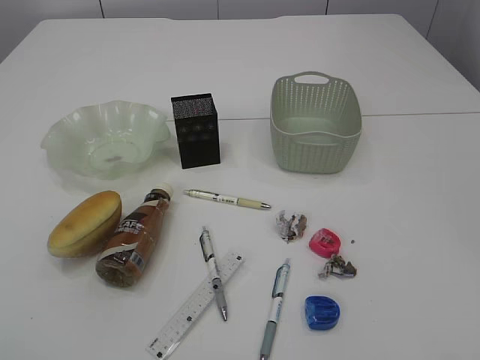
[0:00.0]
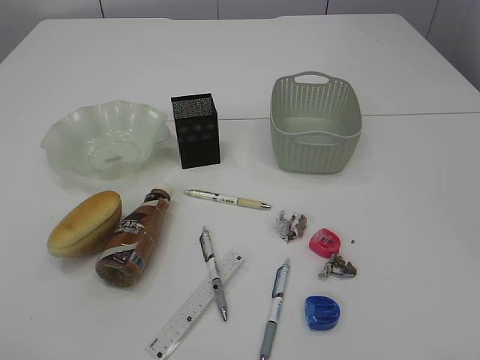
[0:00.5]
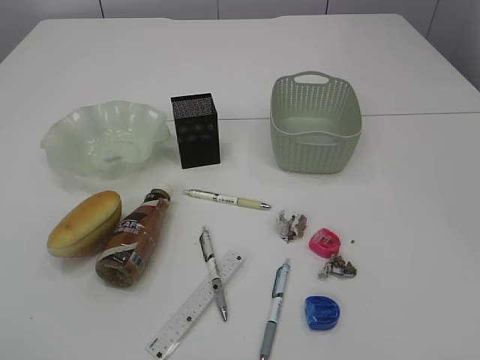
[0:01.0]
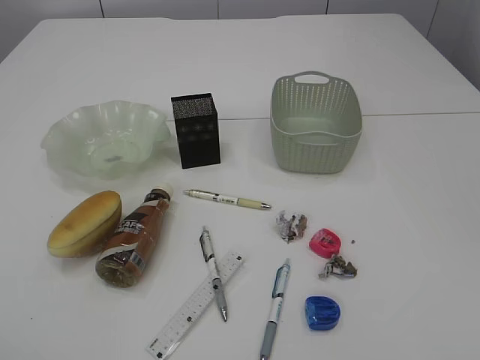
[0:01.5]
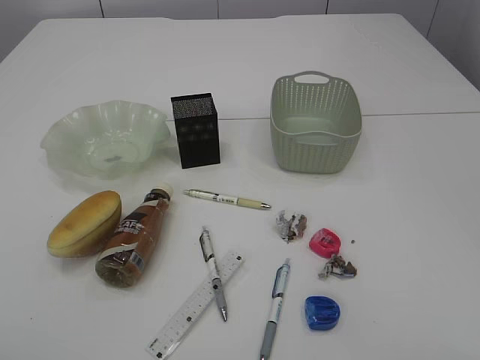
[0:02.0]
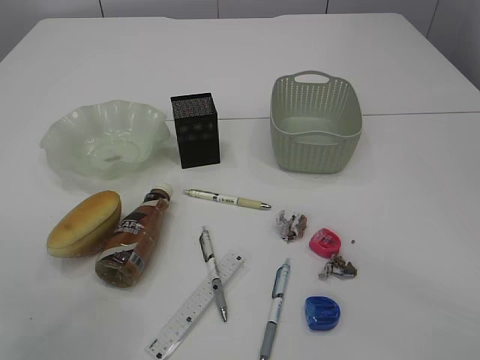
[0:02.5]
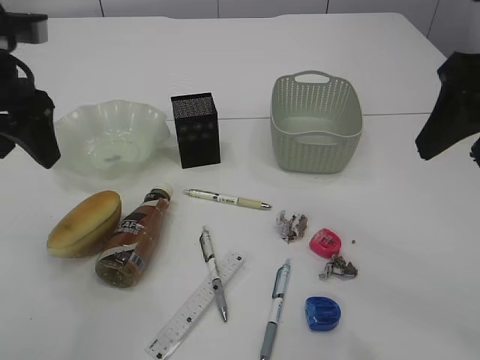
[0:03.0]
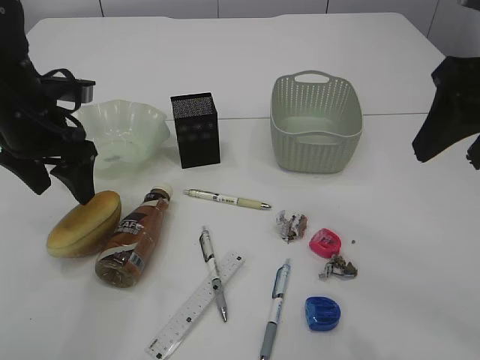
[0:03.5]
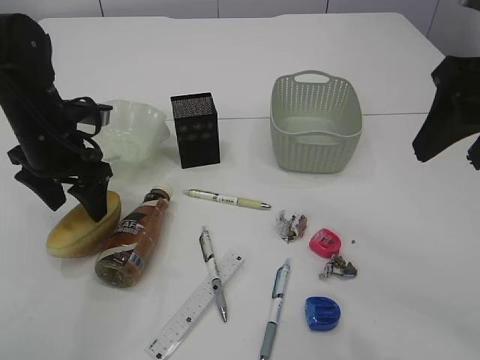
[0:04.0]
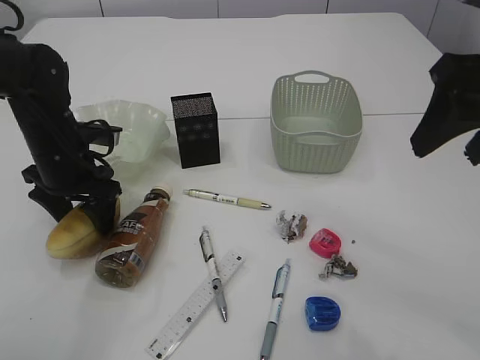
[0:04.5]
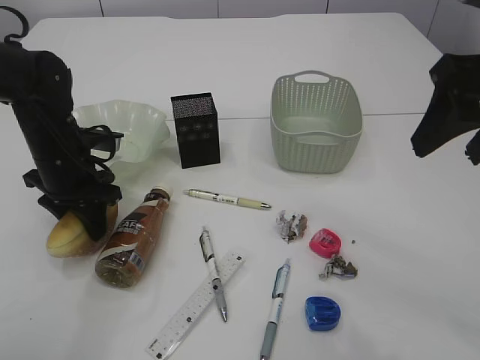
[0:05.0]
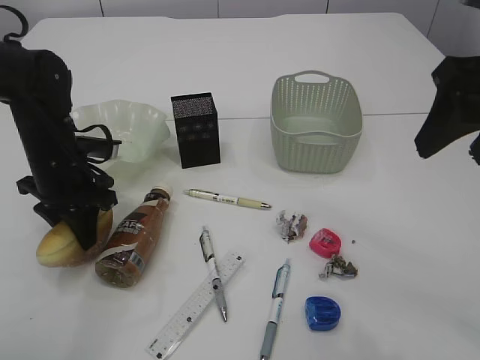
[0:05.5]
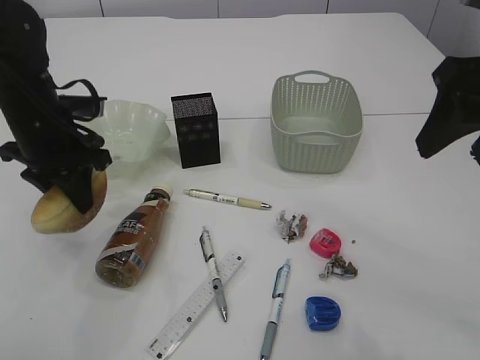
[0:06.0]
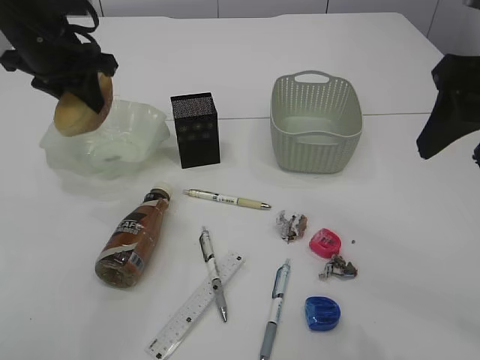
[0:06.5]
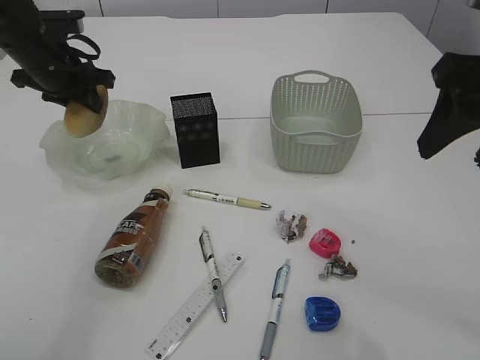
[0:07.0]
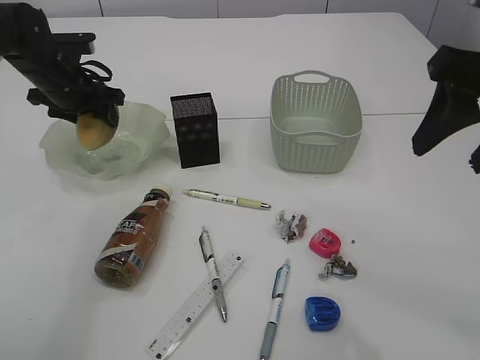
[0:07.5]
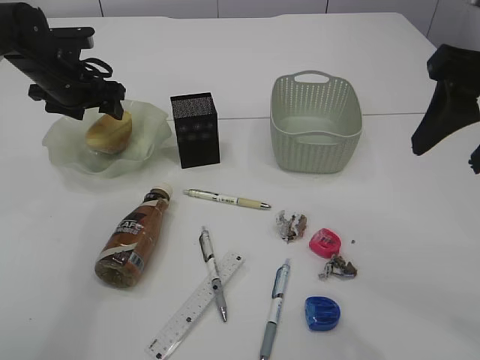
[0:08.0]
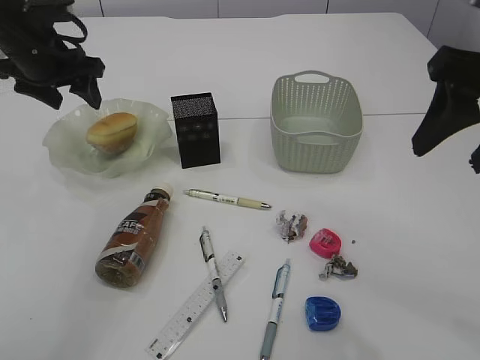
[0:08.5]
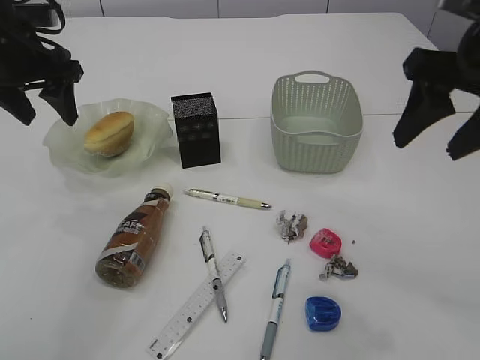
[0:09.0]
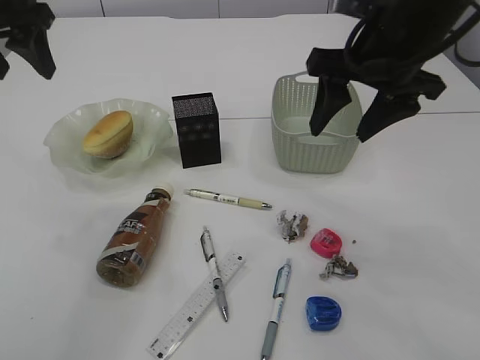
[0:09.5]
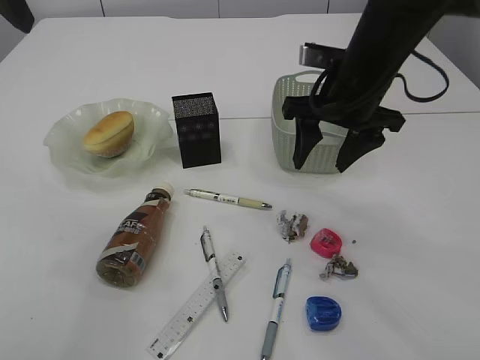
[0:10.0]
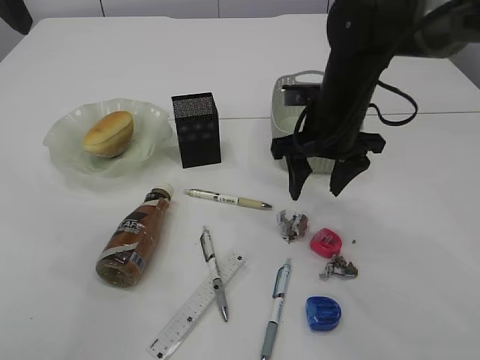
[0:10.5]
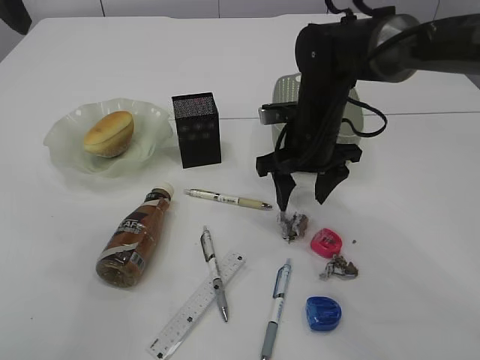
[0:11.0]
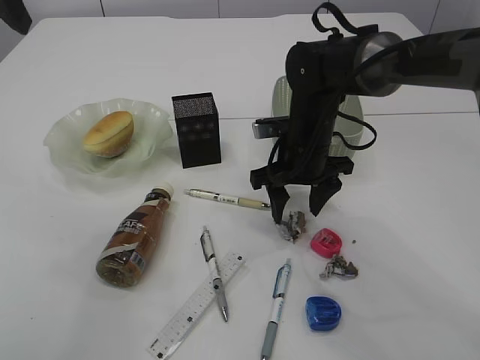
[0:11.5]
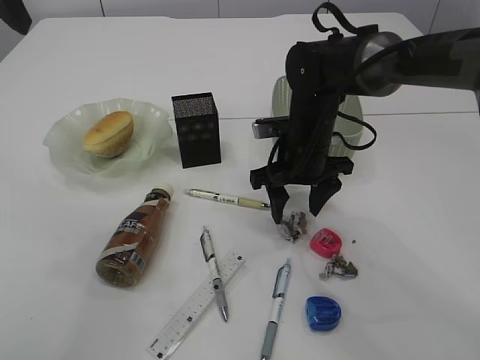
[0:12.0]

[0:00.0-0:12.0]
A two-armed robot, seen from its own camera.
Step, 0:06.0 to 0:08.0: place the bread in the plate.
0:02.0 to 0:04.0: The right gripper goes roughly 25 cm forward, while the left gripper heads forward and downward, covering approximately 35 cm.
0:04.0 to 0:06.0: The left gripper closes up.
0:06.0 to 0:08.0: The left gripper is displaced forward by roughly 10 cm, and opens up.
0:08.0 to 0:10.0: The right gripper goes about 20 cm forward, downward and to the left; the left gripper travels upward and backward by roughly 25 cm.
0:10.0 to 0:12.0: The right gripper moves downward, approximately 10 cm.

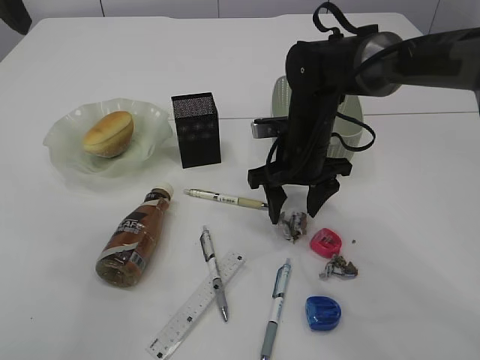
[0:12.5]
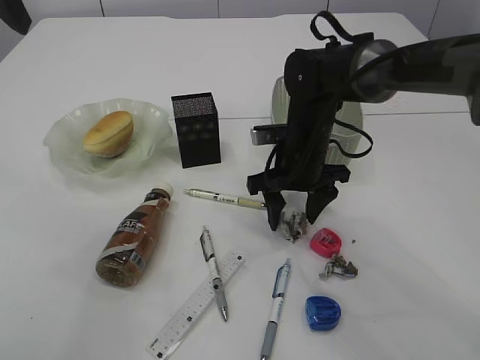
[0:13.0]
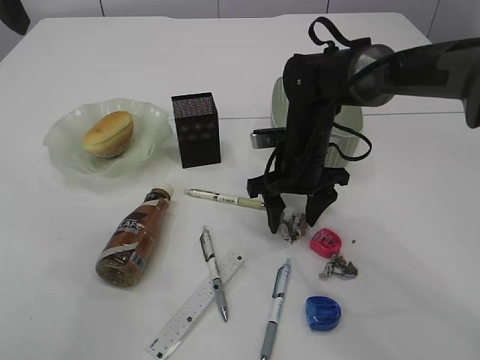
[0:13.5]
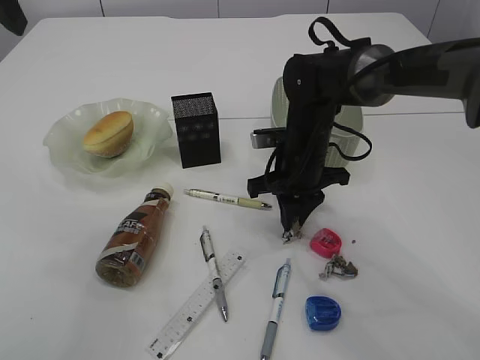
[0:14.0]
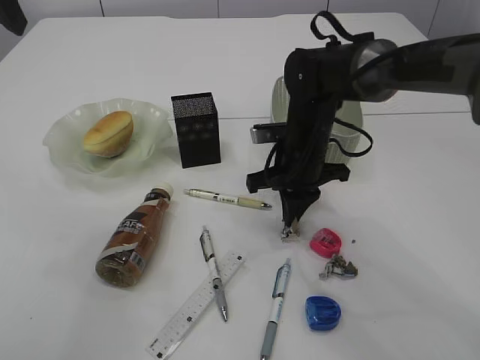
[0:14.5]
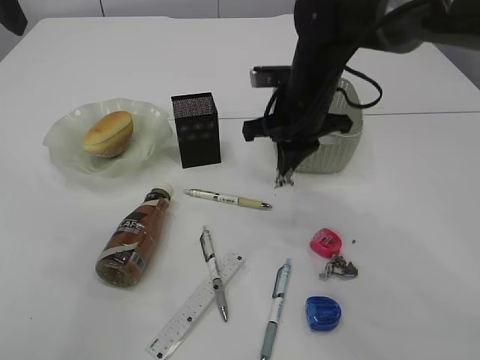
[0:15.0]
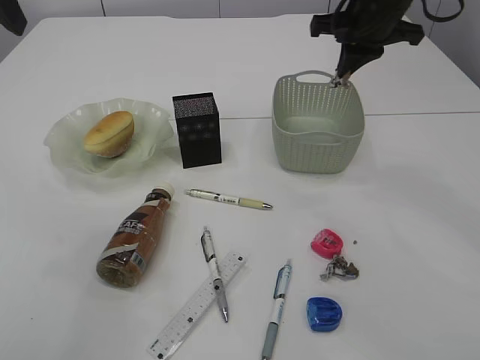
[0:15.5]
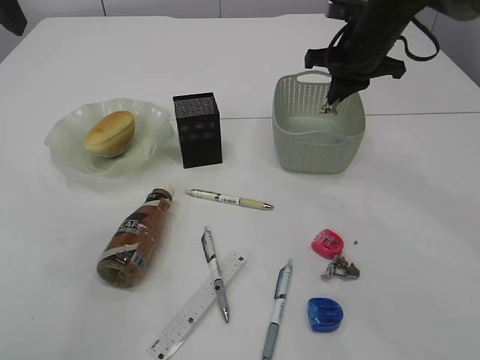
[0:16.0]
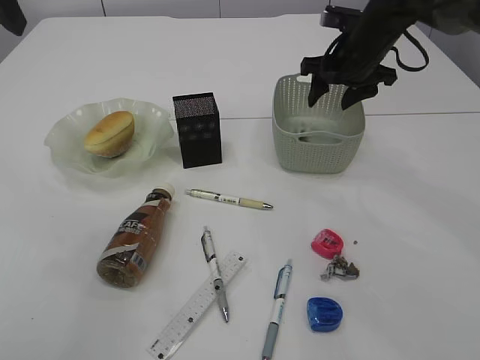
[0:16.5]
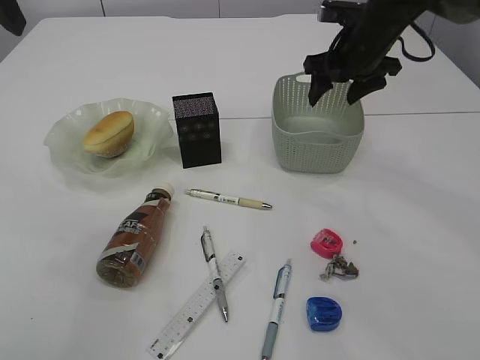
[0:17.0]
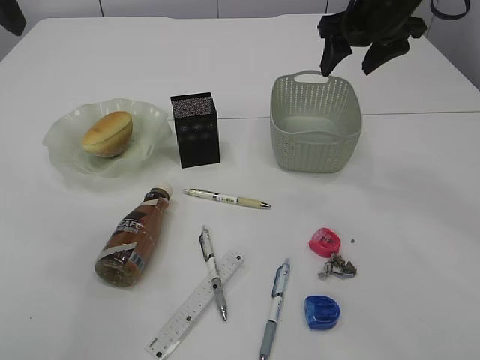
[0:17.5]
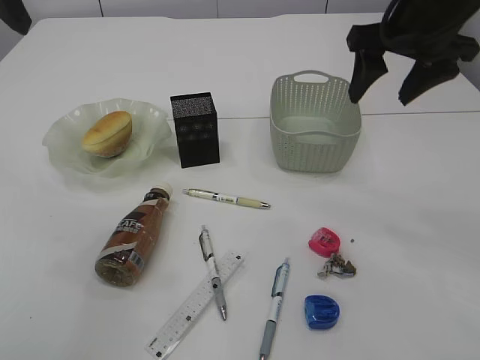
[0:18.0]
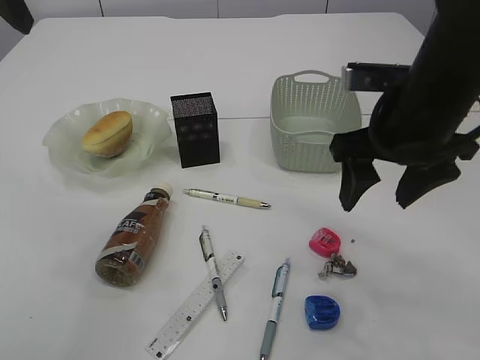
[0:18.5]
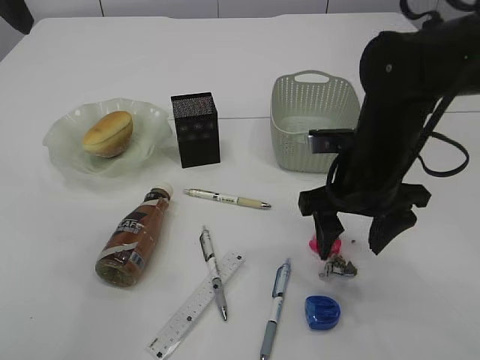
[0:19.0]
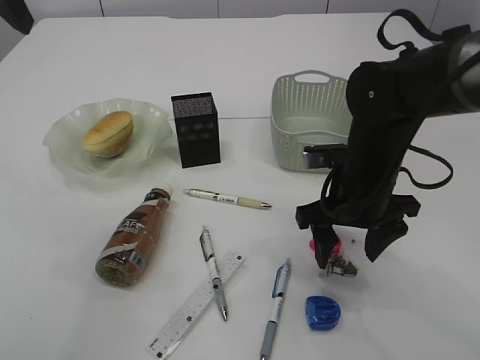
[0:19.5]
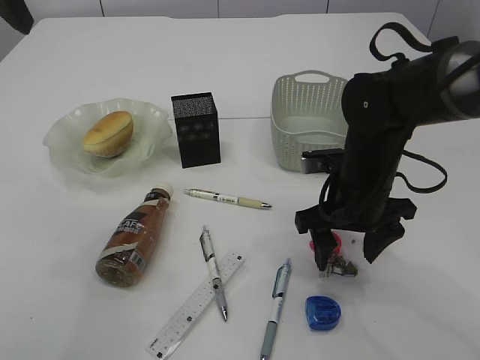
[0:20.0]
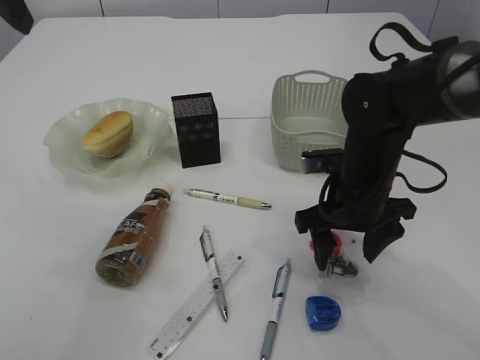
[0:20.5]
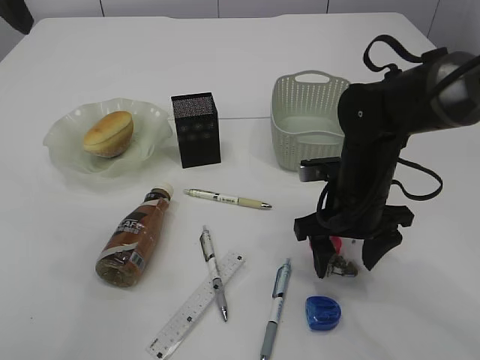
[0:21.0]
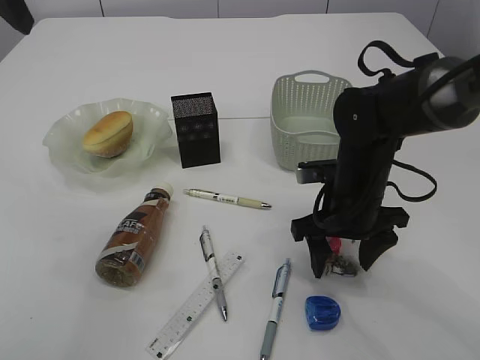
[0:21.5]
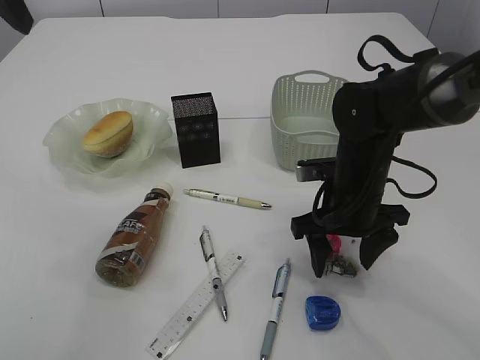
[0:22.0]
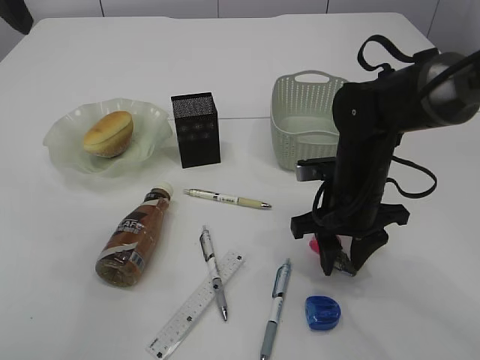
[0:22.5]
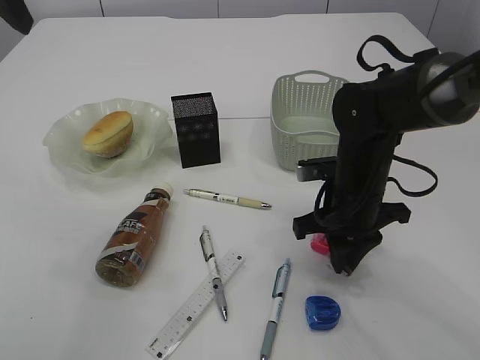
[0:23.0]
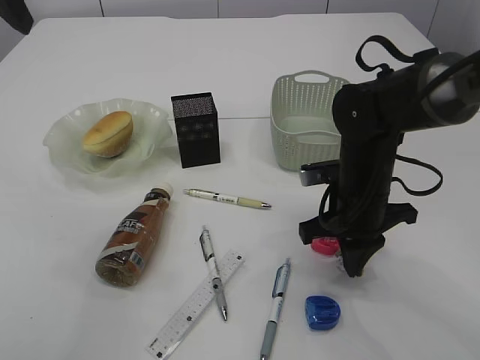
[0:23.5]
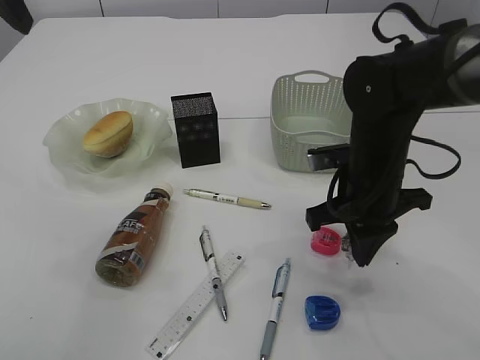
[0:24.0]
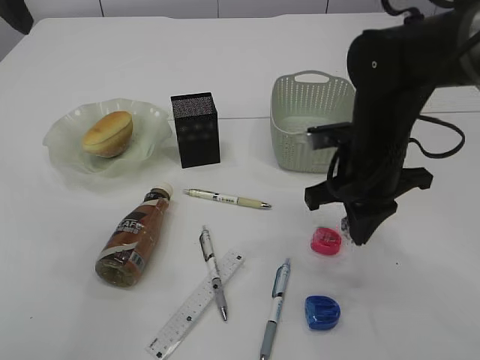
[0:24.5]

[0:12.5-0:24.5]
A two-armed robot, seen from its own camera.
Step, 0:12.5 to 0:14.5: Pick up the waste paper.
Step, 0:15.0 to 0:16.5: Place the waste paper in the basket.
0:12.5 to 0:14.5: The right gripper closes up.
0:14.5 to 0:16.5: The right gripper shifts about 15 cm forward, to the right and upward, and opens up.
0:16.5 to 0:18.5: The right gripper travels backward by about 20 cm.
0:18.5 to 0:20.5: The right gripper moves downward, some 10 cm.
0:20.5 to 0:22.5: The right gripper closes its fingers.
0:22.5 to 0:24.5: The right gripper goes approximately 5 cm upward, and closes up.

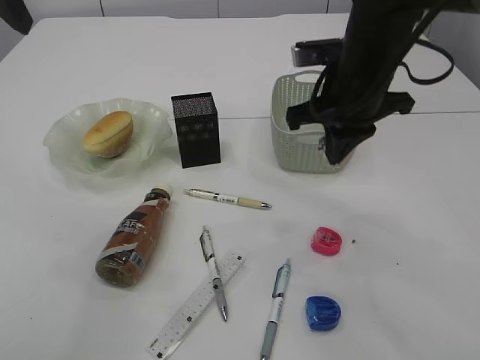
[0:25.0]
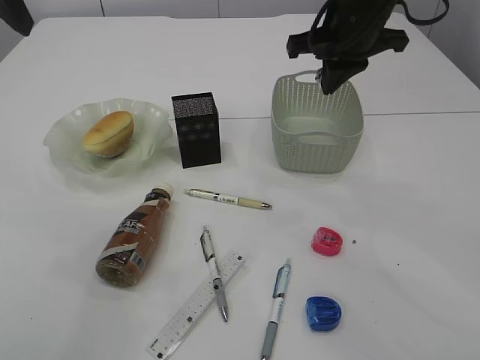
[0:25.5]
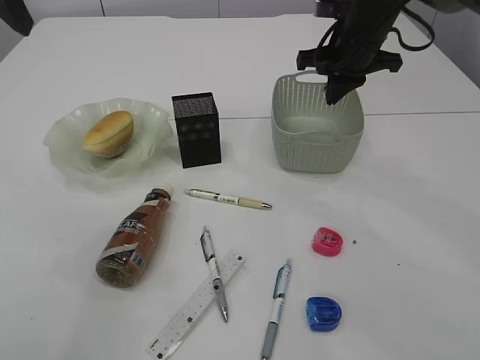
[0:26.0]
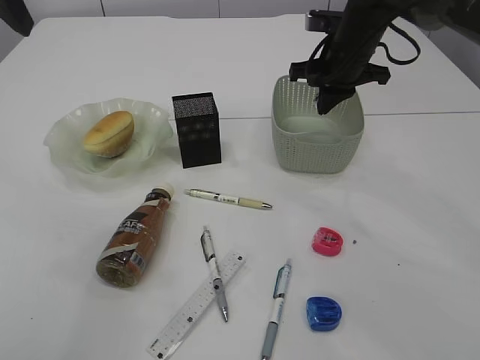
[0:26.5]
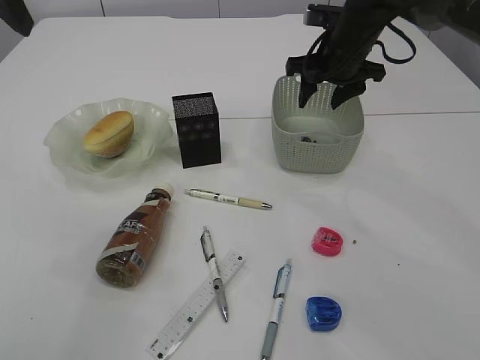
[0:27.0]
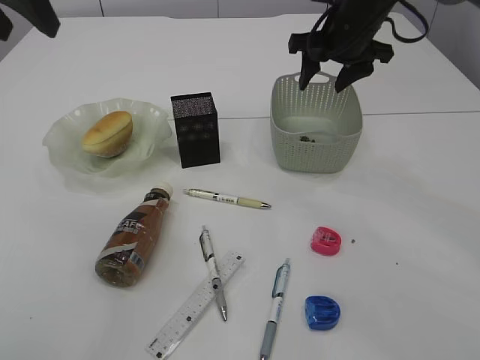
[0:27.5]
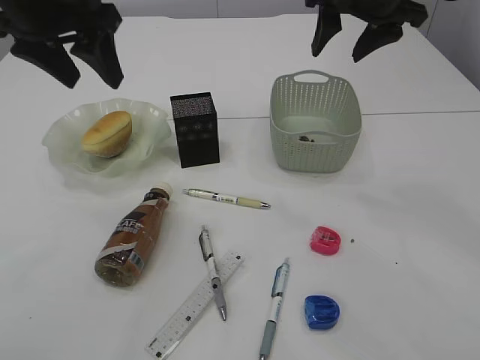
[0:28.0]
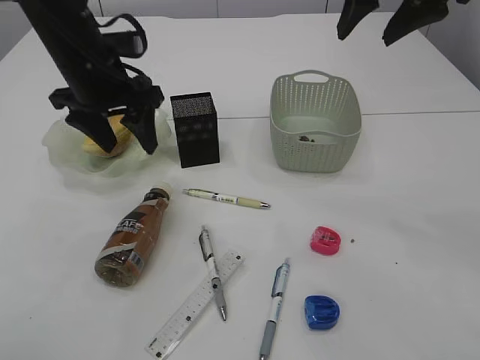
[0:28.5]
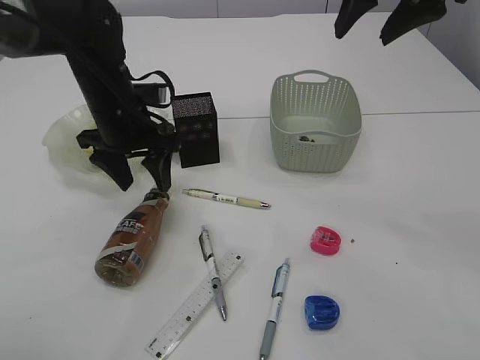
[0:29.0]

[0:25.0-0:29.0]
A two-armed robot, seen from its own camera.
Step, 0:25.0 to 0:27.0: Place the waste paper in the basket.
0:25.0 to 0:27.0: The right gripper shifts about 15 cm forward, and opens up.
0:27.0 to 0:29.0: The right gripper heads upward and backward, covering some 20 cm. The left gripper travels downward and to the right by roughly 25 cm.
